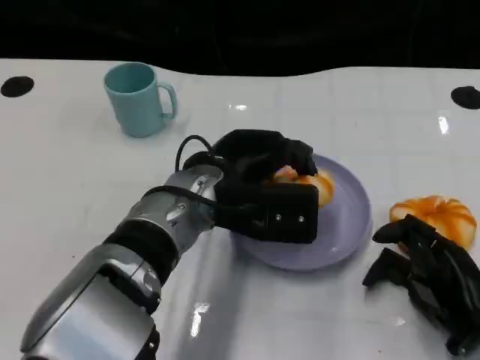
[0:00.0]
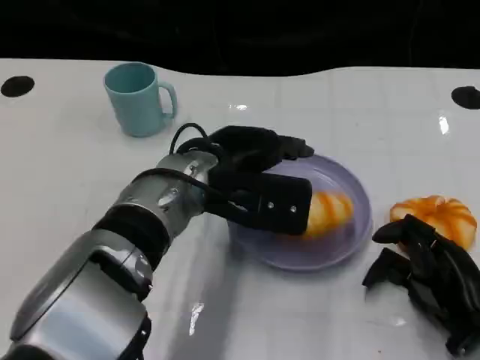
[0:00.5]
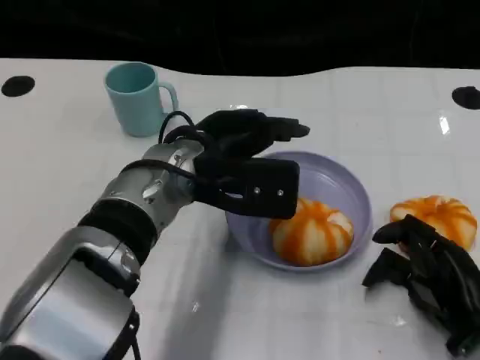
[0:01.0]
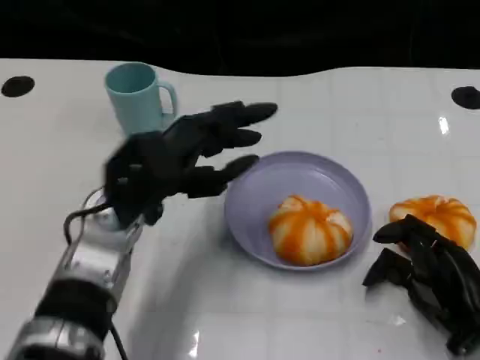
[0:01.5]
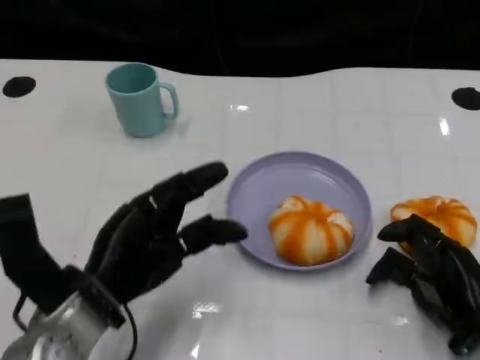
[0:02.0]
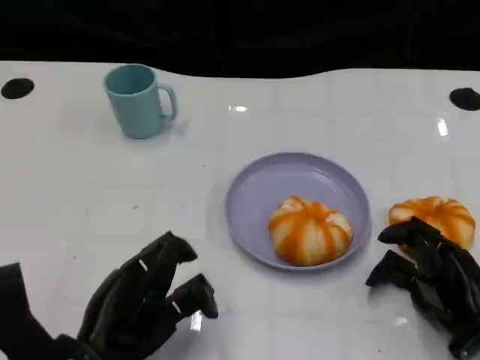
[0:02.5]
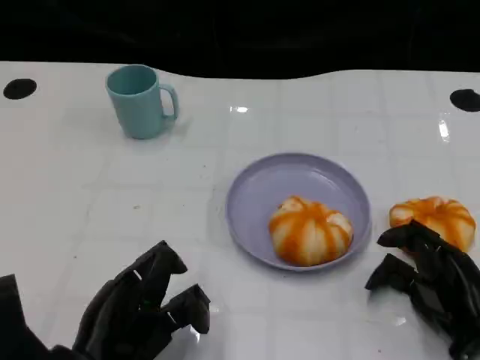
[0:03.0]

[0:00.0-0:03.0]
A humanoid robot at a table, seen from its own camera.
Task of the whole recording: Grasp the bread from the table and place it into the plate.
0:00.0 to 0:01.5: The left hand goes approximately 10 cm to the left.
0:01.5 to 0:03.0: The left hand moves backward and downward, roughly 15 cm.
